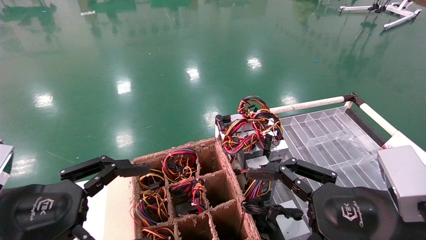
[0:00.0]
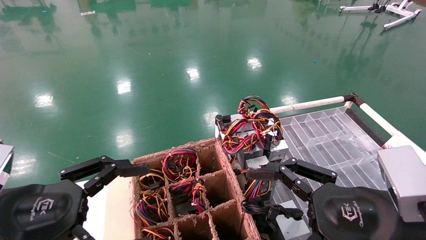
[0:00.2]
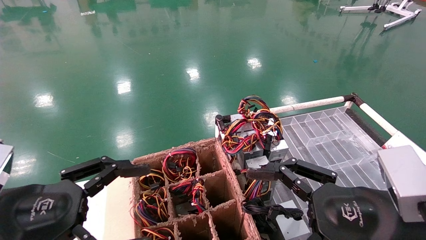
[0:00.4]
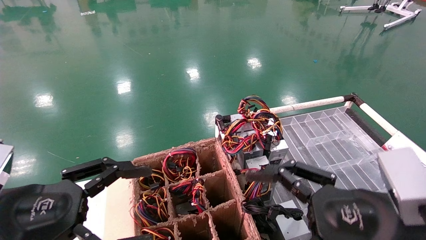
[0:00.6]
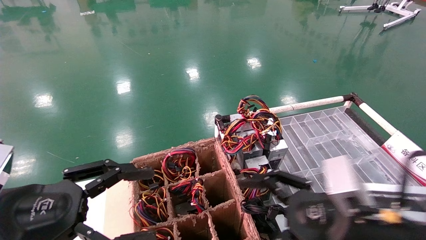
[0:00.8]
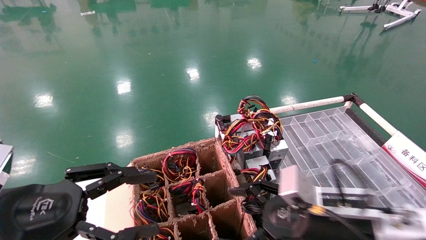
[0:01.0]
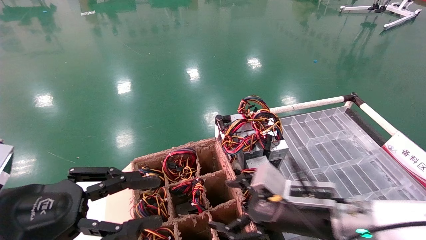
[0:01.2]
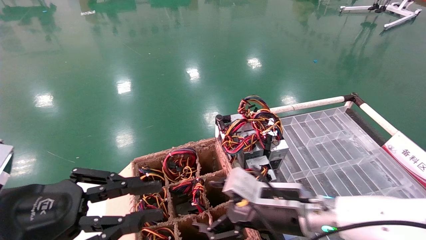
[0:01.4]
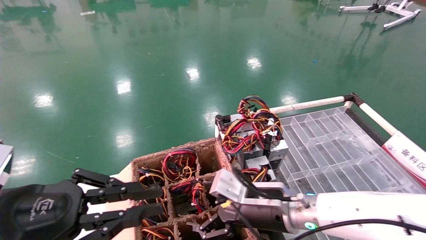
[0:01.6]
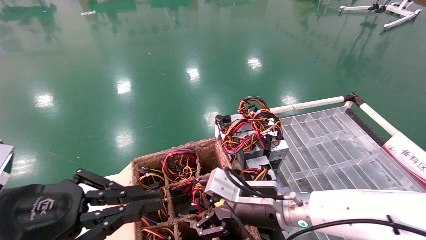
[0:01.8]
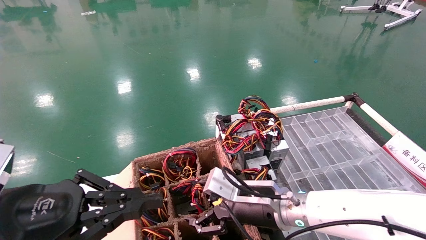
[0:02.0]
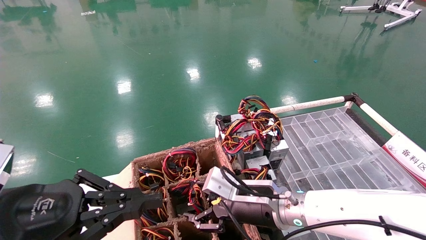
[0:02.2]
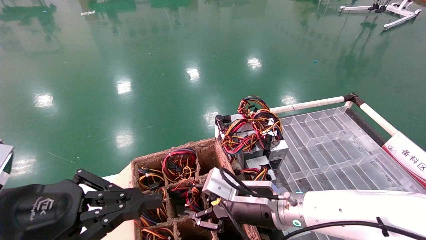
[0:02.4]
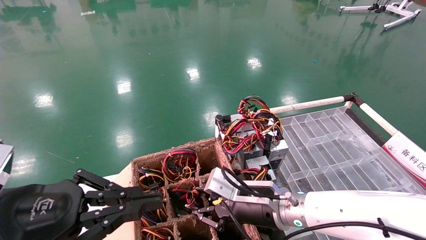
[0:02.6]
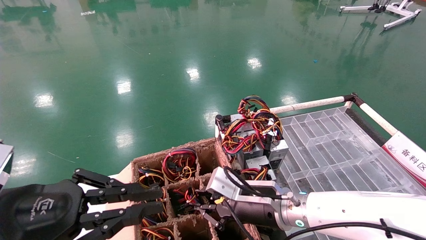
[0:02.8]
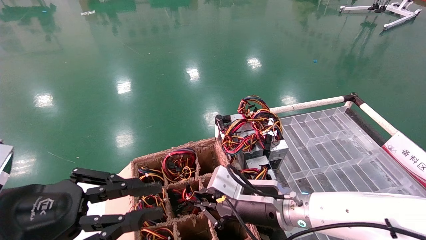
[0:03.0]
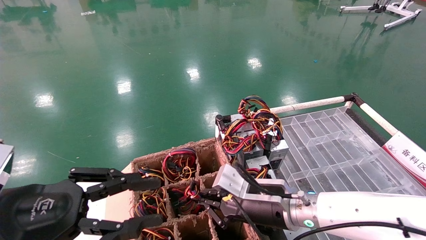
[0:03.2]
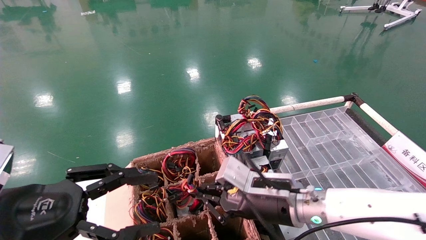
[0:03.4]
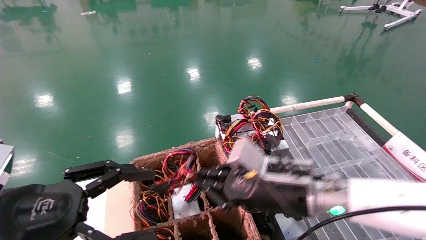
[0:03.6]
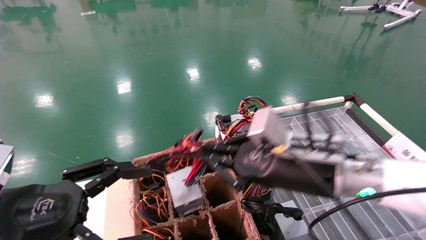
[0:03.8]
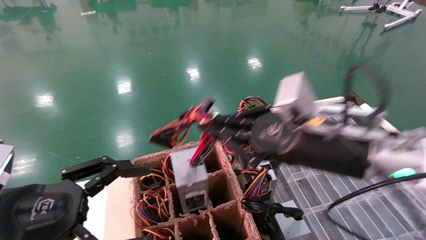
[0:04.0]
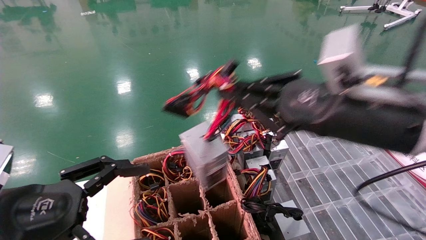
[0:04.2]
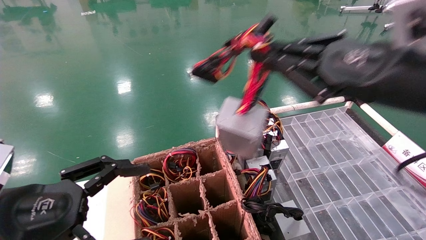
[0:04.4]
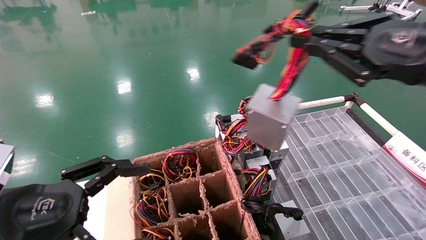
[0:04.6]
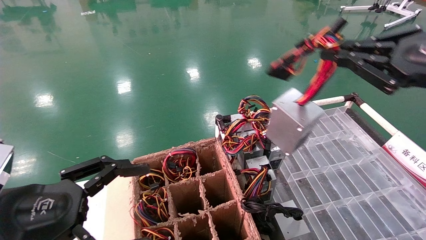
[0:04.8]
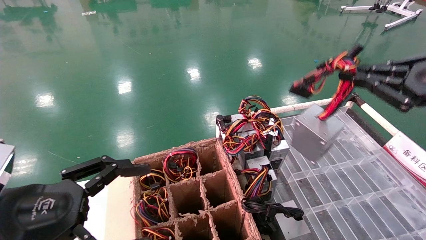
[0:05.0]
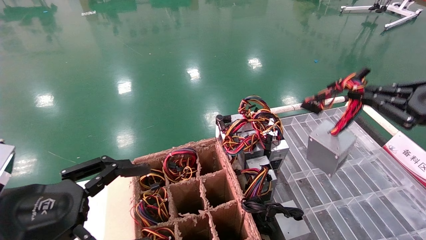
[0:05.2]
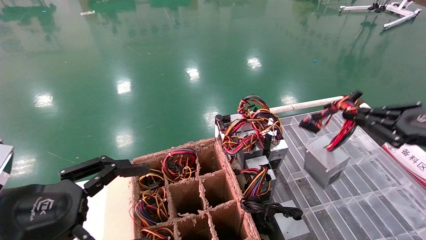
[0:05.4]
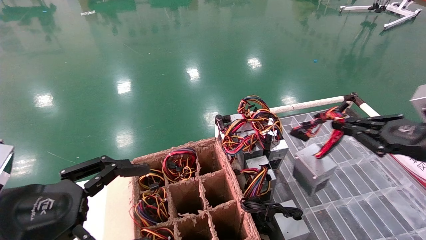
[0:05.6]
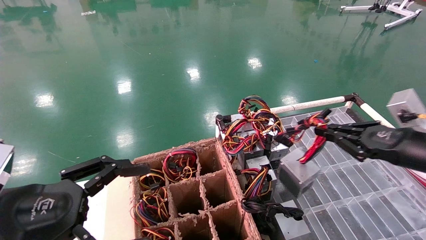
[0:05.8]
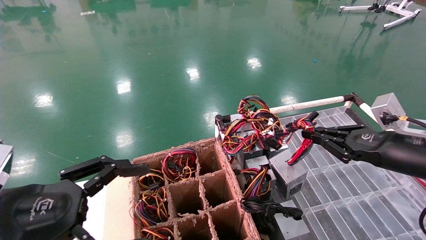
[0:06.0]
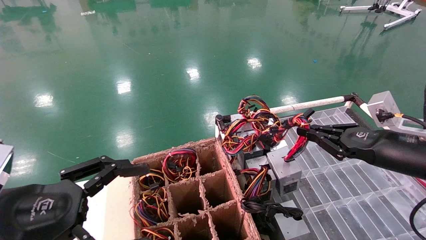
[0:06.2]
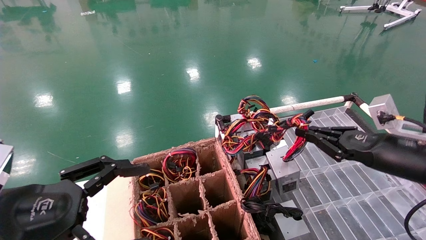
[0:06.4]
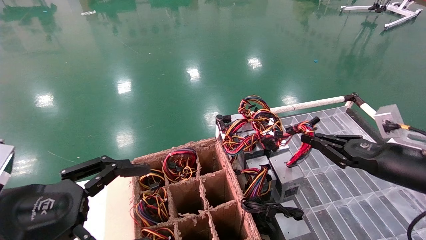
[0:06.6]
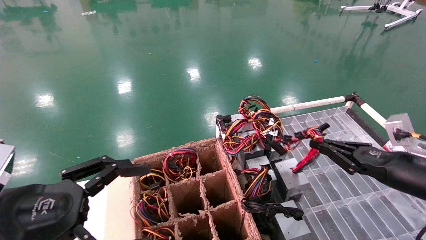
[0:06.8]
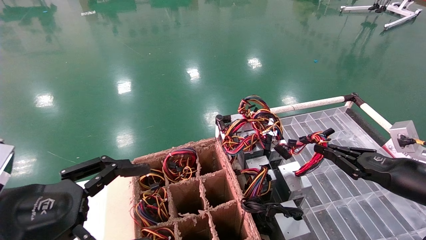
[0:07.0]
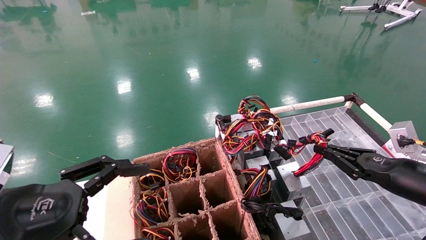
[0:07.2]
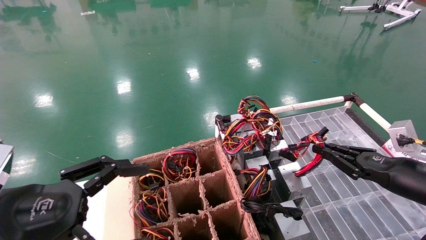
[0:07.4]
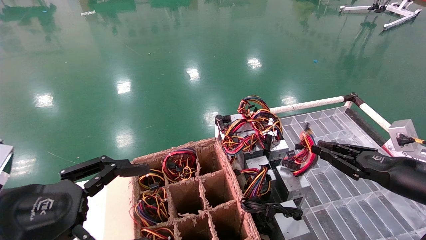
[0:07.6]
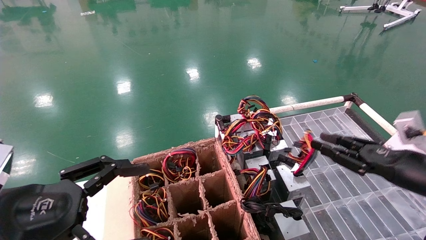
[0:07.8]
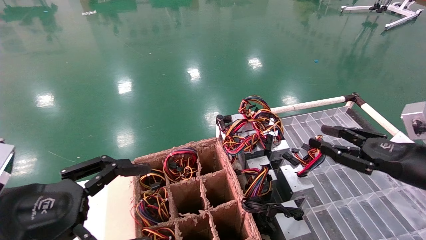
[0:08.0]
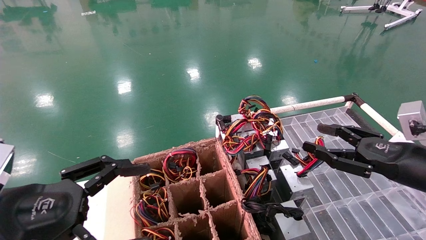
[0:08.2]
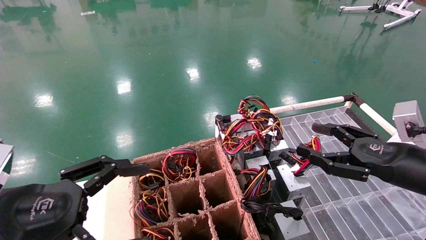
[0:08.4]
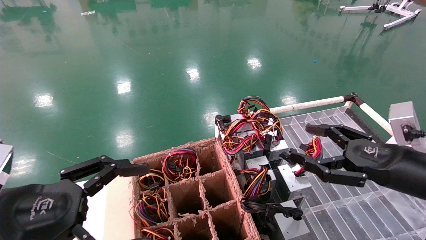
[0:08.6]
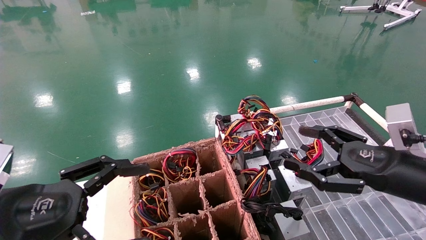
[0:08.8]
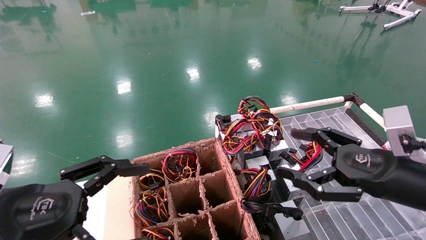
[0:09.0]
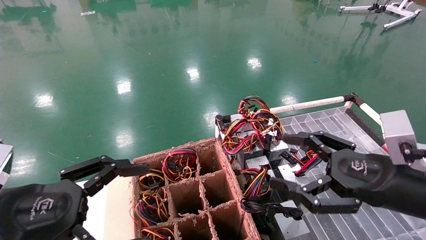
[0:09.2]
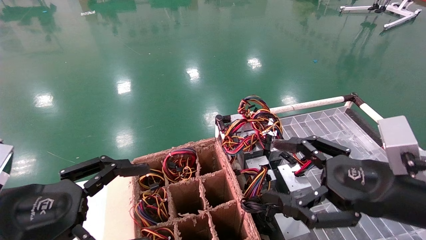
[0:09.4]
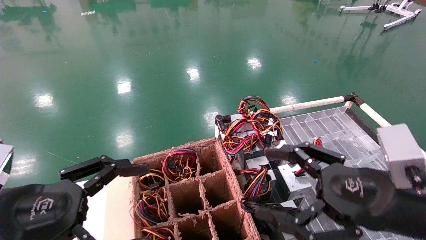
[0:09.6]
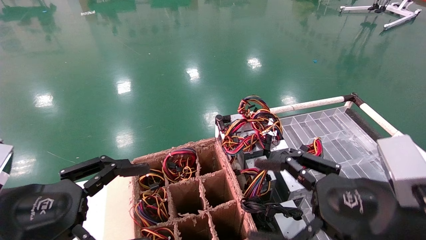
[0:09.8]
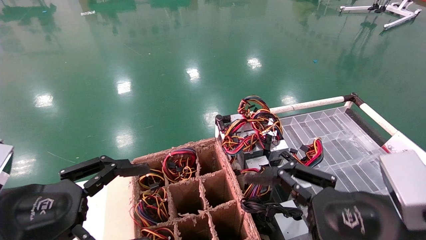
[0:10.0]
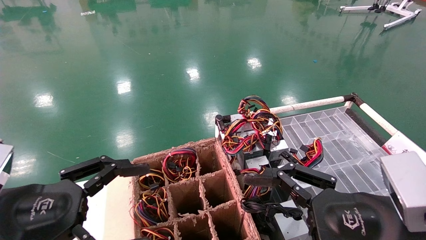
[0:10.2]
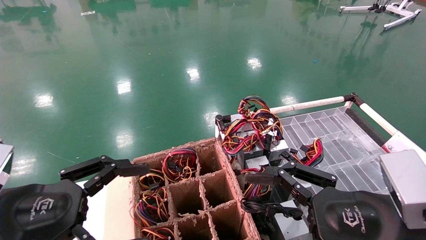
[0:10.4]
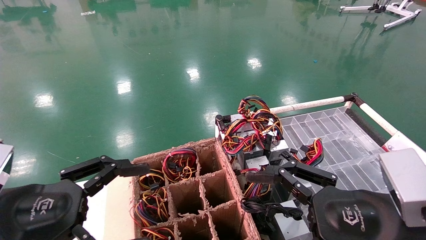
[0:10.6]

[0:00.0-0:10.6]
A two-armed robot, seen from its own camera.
Step, 0:02.0 to 0:03.2: Grab and lift the power supply from the large box.
Step, 0:03.4 to 0:07.6: Place the power supply on the operating table.
0:00.0 to 0:01.6: The right gripper heads forward, to the left and downward, covering about 20 cm, while the left gripper closes its fingers.
0:01.6 to 0:03.0: The right gripper closes its fingers.
0:03.0 to 0:04.6: The left gripper opens up, while the right gripper moves upward, to the right and backward, about 35 cm.
0:04.6 to 0:06.0: The right gripper goes approximately 20 cm downward, forward and to the right.
0:06.0 to 0:07.6: The right gripper goes about 5 cm downward.
0:07.6 to 0:09.0: The right gripper is displaced to the left and backward by about 10 cm, and opens.
0:09.0 to 0:10.6: The right gripper travels to the left and backward by about 10 cm.
